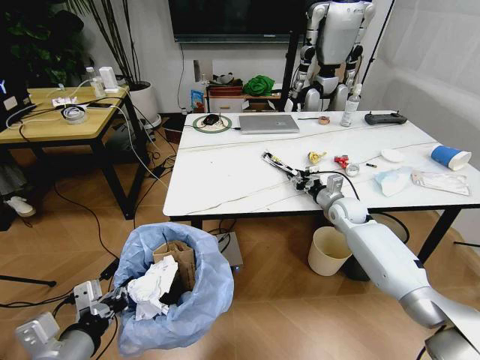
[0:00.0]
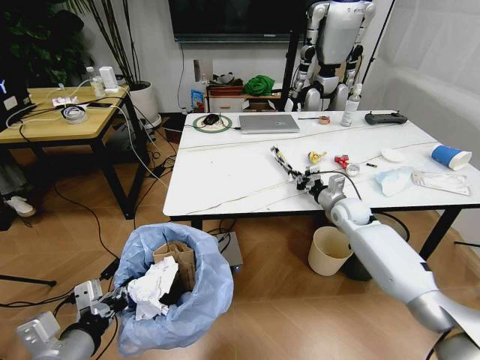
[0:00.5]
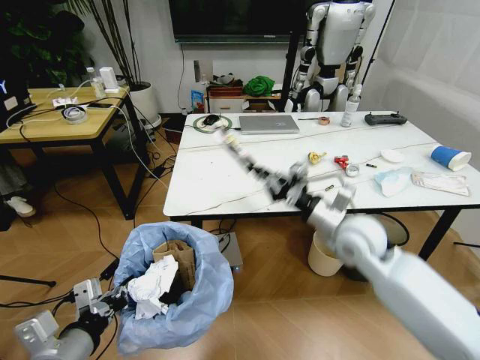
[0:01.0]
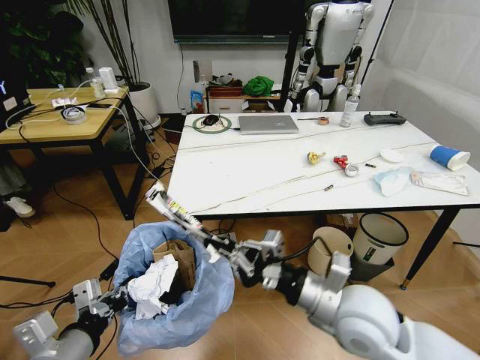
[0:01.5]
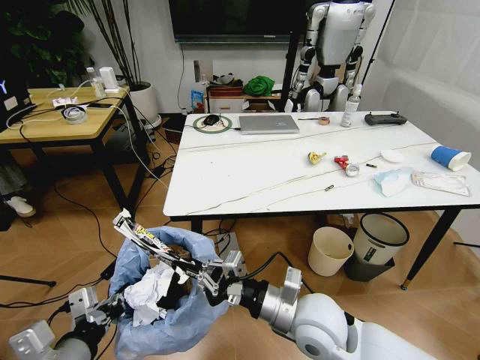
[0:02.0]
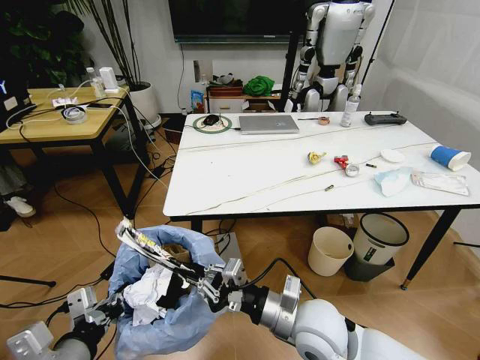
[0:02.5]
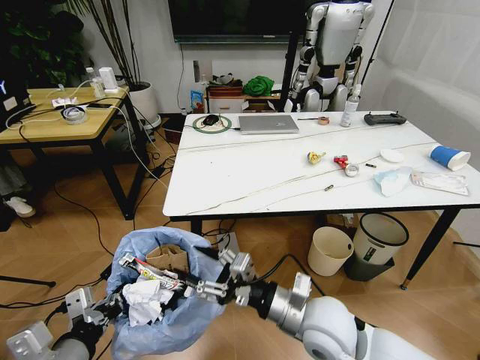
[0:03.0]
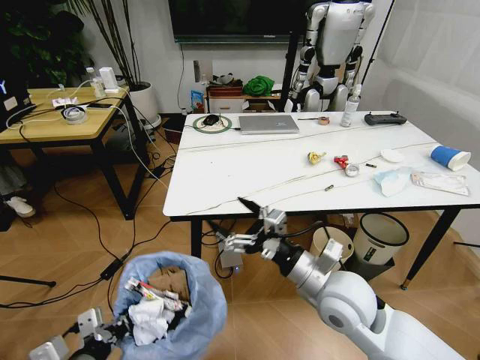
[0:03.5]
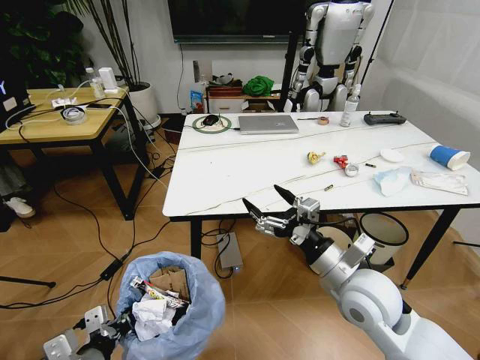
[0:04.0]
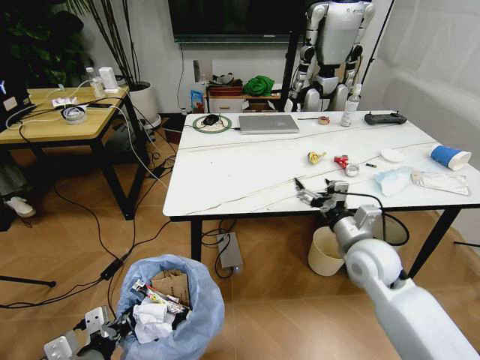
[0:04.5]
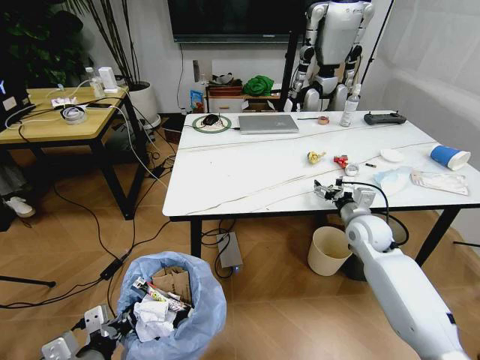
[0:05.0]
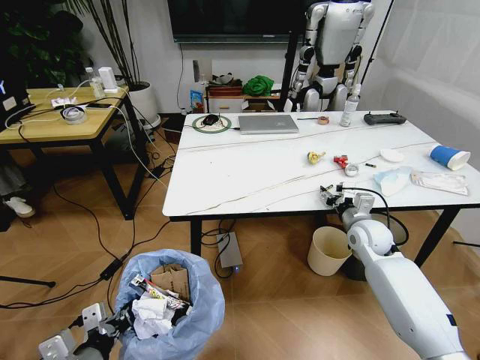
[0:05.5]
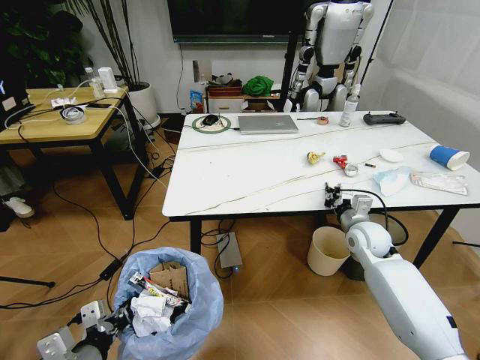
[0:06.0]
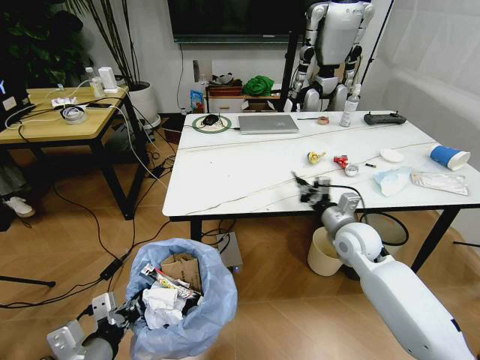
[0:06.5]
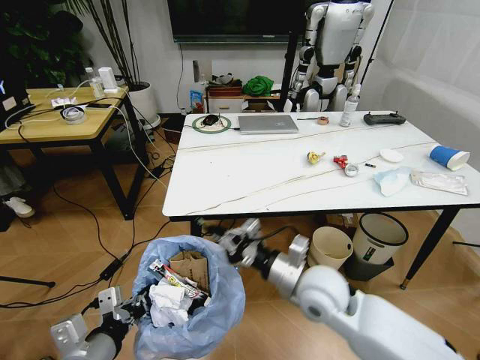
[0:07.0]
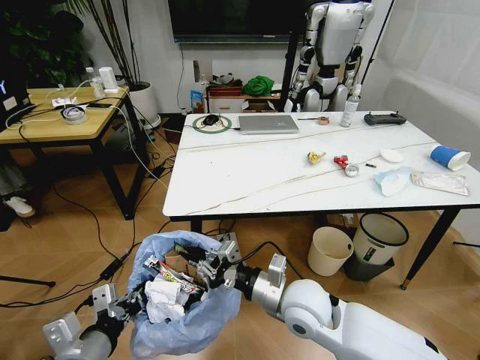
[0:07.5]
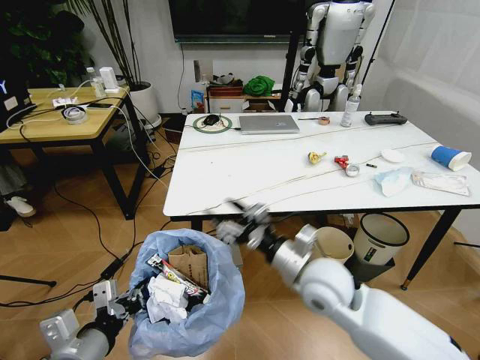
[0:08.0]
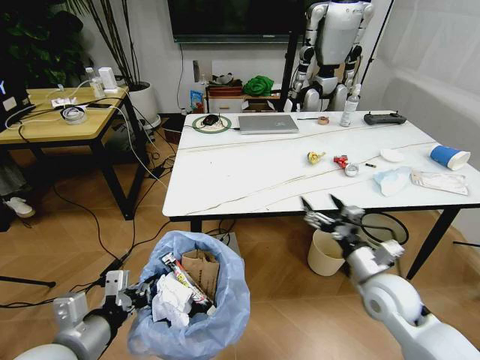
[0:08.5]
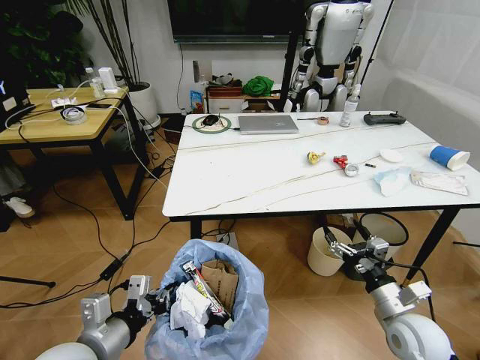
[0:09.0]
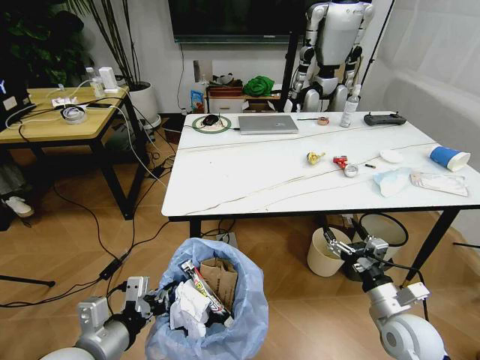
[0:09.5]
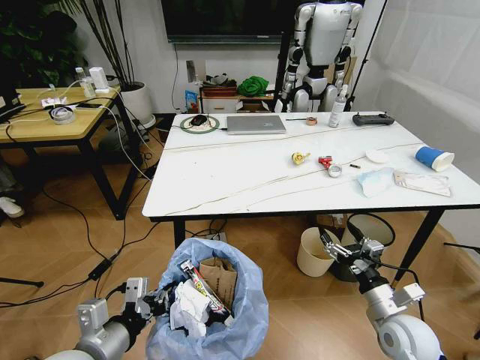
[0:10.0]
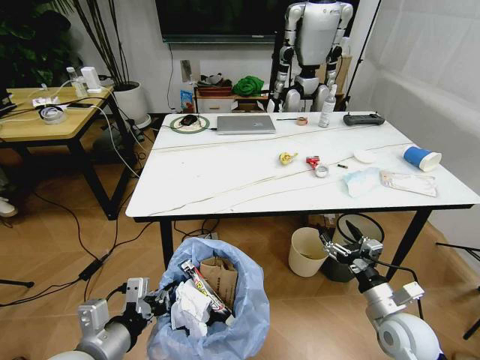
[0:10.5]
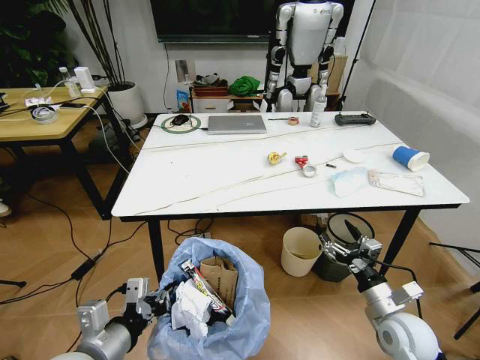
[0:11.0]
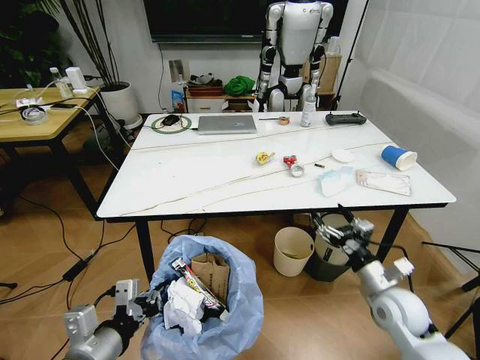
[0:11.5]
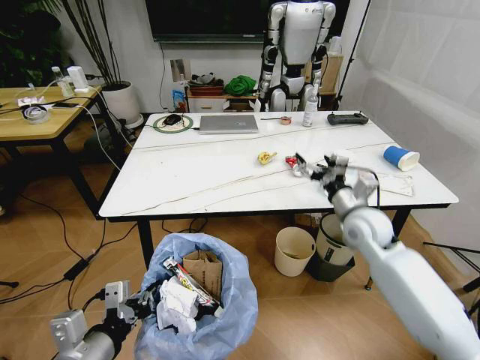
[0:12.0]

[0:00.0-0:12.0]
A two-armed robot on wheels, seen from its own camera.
Task of the whole recording: Pick up the trash bin and place the trash from the table into it.
0:00.0 to 0:02.0: The right gripper heads backward and to the left, covering some 35 cm, and closes.
0:02.0 to 0:04.0: The left gripper is displaced downward by some 10 cm, while the right gripper moves to the right, some 10 cm, and opens.
0:04.0 to 0:06.0: The right gripper travels forward, to the right and downward by approximately 20 cm, and closes its fingers.
0:06.0 to 0:08.0: The left gripper moves upward, about 5 cm. The right gripper is displaced to the left and backward by approximately 25 cm, and opens its fingers.
0:08.0 to 0:10.0: The right gripper heads to the right and downward, covering roughly 25 cm.
0:10.0 to 0:12.0: The right gripper heads forward and upward, covering about 25 cm.

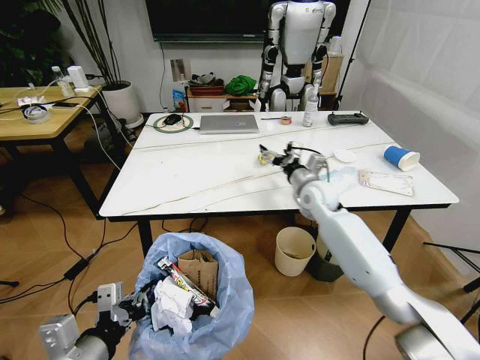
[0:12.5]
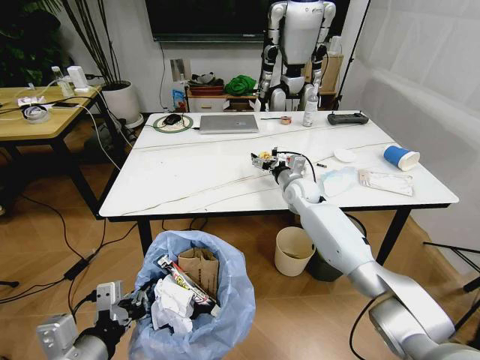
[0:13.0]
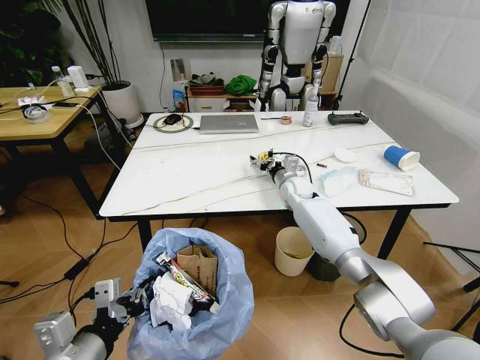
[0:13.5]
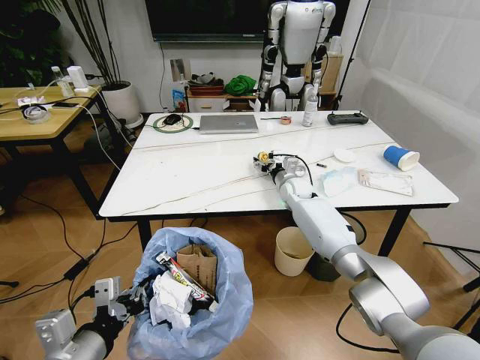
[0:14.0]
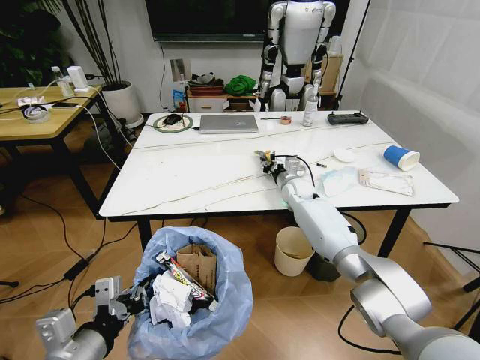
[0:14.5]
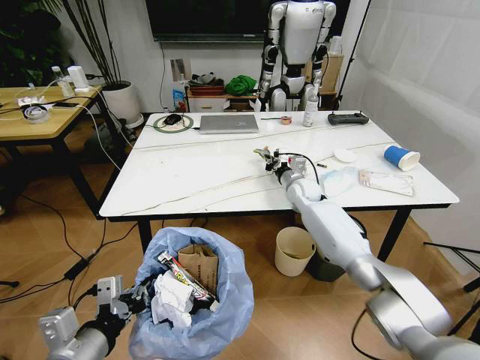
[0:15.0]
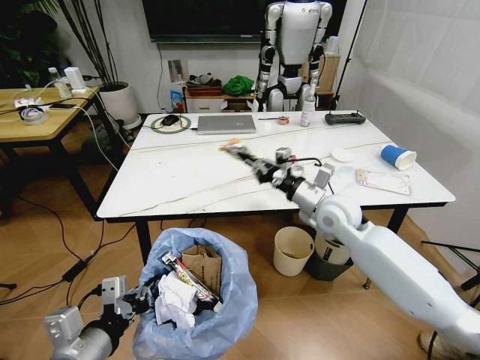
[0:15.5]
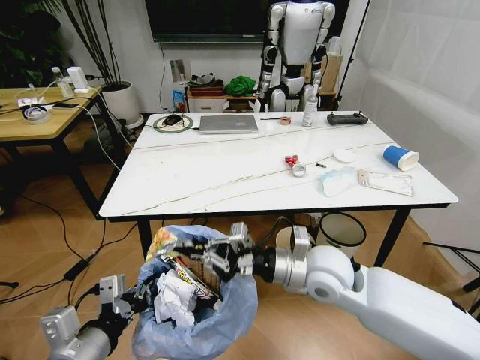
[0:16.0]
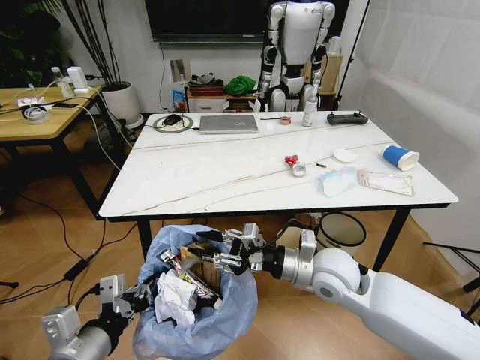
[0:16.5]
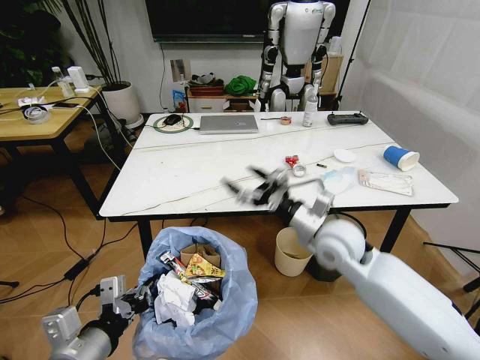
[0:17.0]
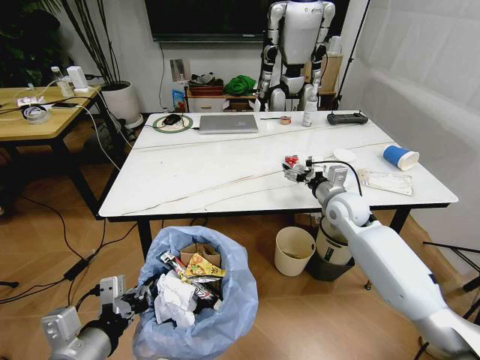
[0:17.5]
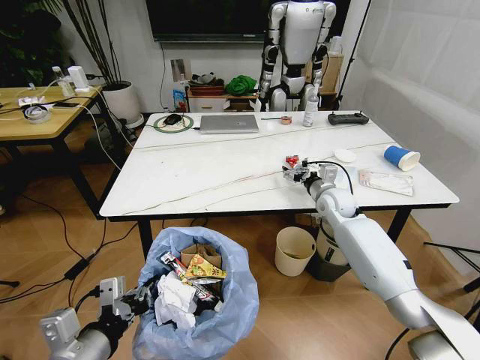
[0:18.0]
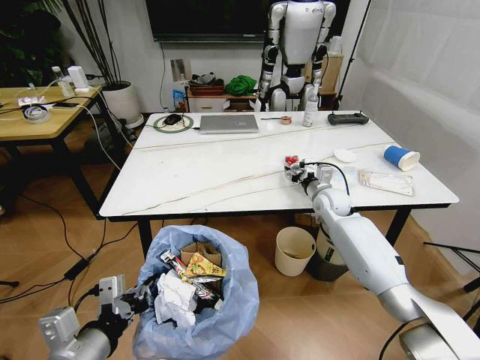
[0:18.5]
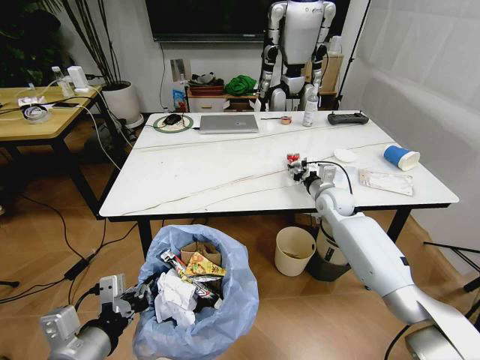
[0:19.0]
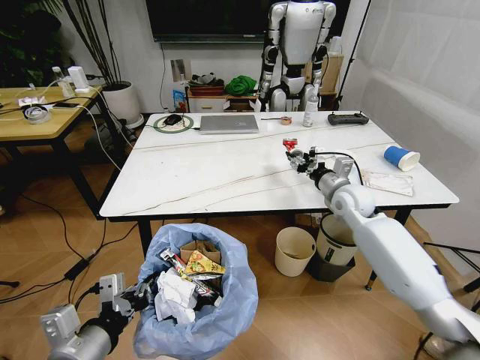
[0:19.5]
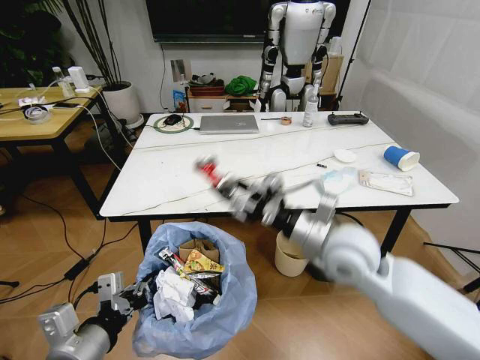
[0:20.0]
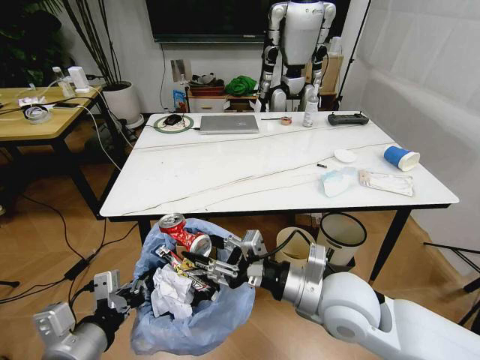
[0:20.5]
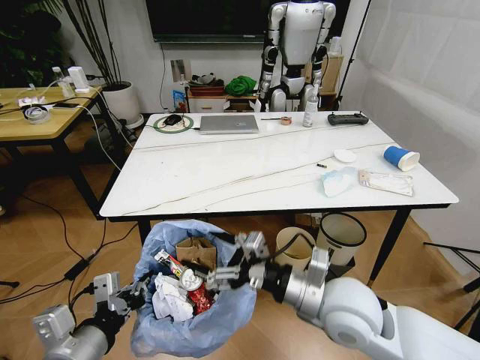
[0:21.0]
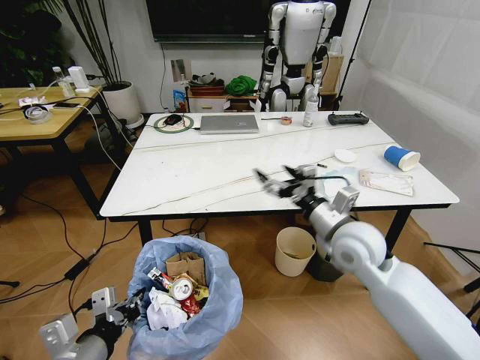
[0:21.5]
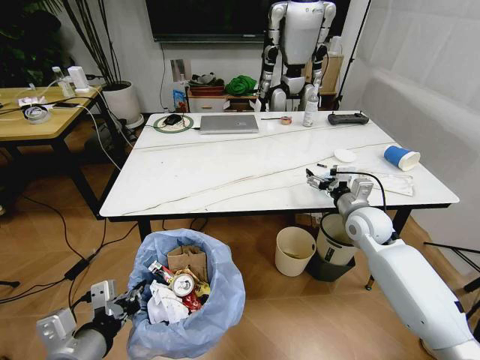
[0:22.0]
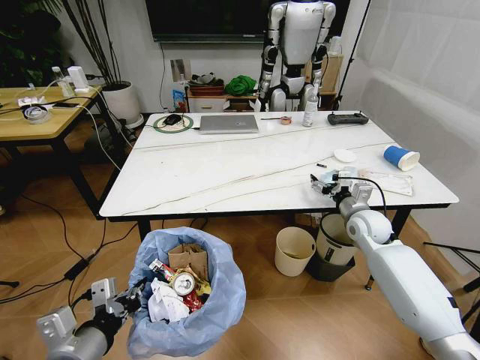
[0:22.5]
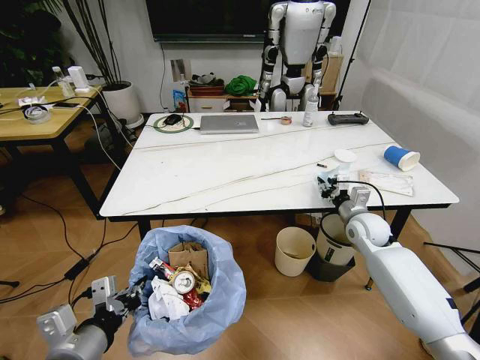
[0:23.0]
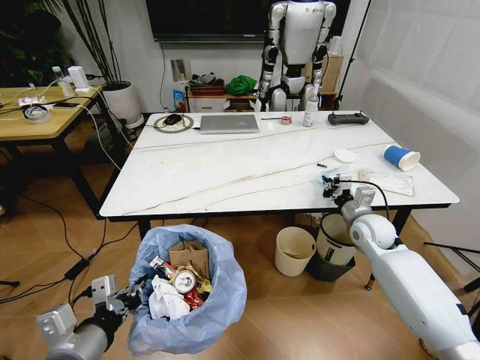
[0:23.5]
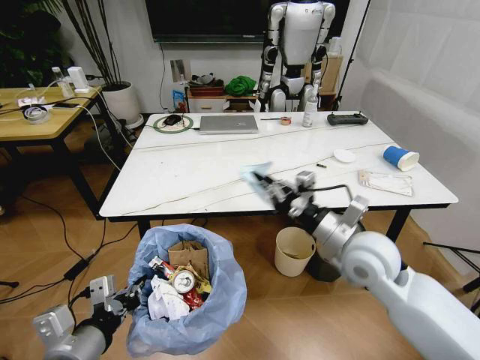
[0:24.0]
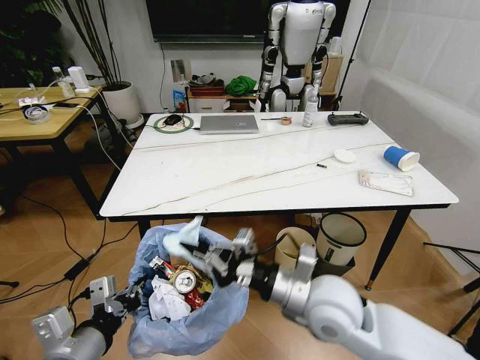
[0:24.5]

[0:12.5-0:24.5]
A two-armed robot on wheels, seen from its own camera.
Task of the whole recording: Pick up the trash bin and place the trash from the table into it.
0:12.5 to 0:14.5: The right gripper goes about 10 cm forward and downward, and closes up.
0:14.5 to 0:16.5: The right gripper travels backward by some 30 cm.
0:16.5 to 0:18.5: The right gripper moves forward, about 25 cm, and opens, then closes again.
0:18.5 to 0:20.5: The right gripper shifts roughly 30 cm backward.
0:20.5 to 0:22.5: The right gripper moves forward and to the right, some 25 cm, and opens.
0:22.5 to 0:24.5: The right gripper heads backward and to the left, covering some 30 cm, and closes up.

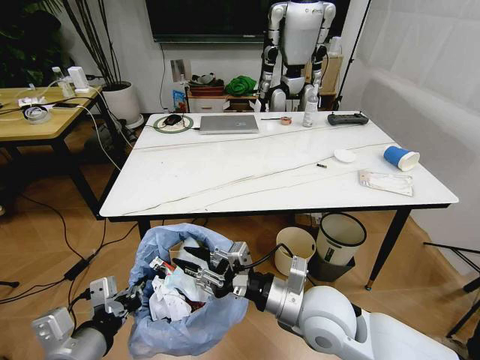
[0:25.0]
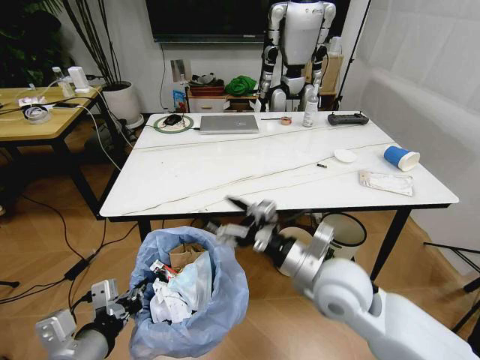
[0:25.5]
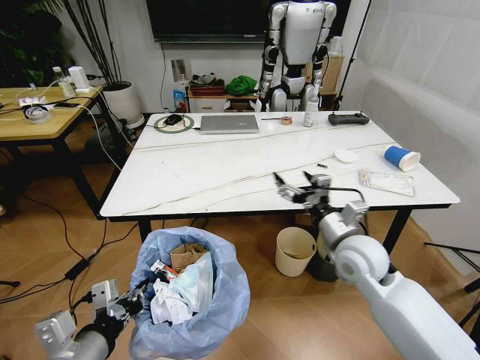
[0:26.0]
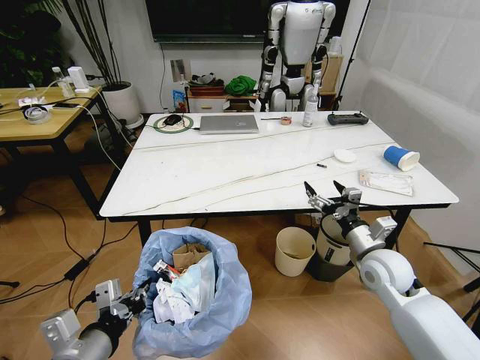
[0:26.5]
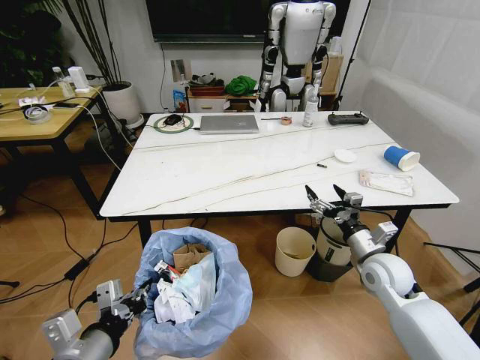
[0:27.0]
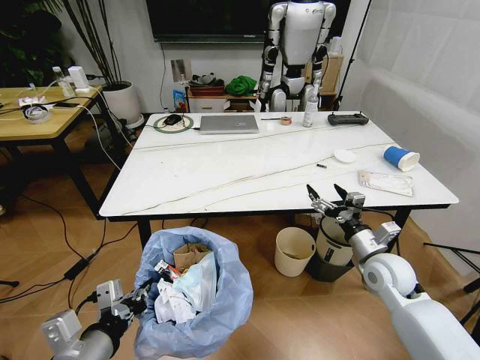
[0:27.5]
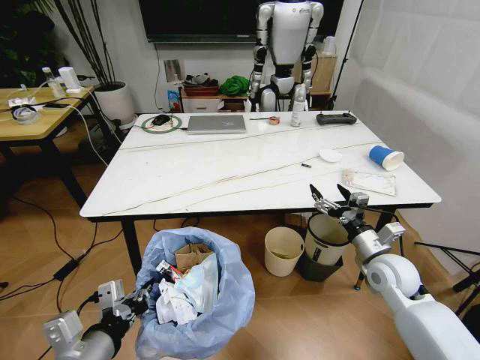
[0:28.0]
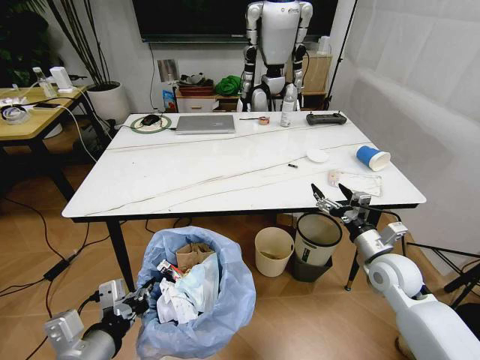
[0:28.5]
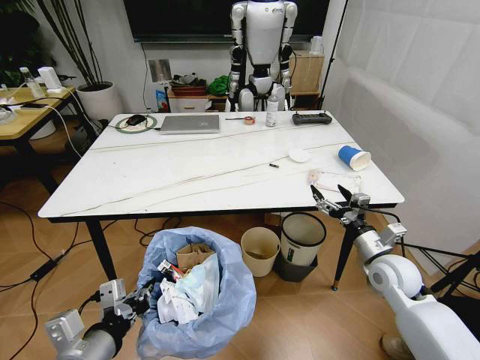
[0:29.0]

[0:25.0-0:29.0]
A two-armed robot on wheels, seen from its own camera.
Task of the whole recording: Pick up the trash bin and place the trash from the table into it.
0:25.0 to 0:27.0: The right gripper is displaced to the right and forward by approximately 20 cm, and opens.
